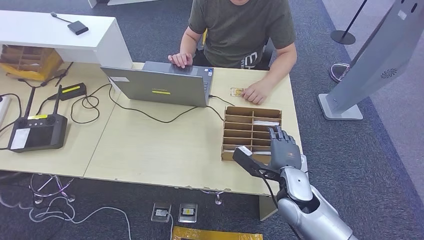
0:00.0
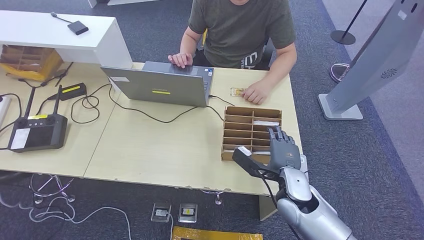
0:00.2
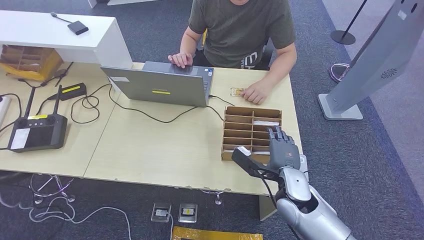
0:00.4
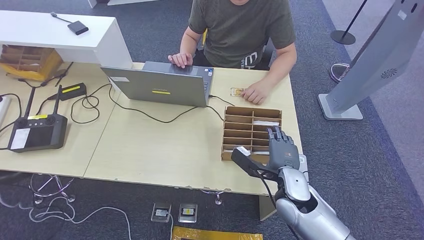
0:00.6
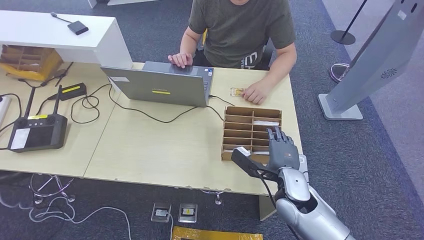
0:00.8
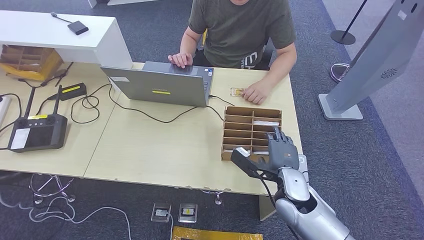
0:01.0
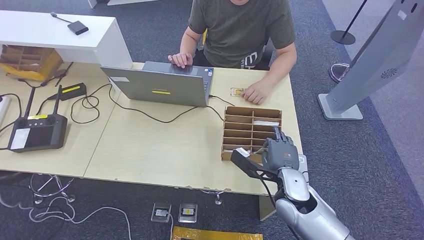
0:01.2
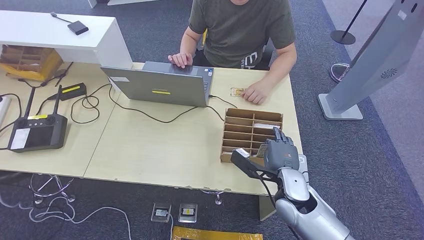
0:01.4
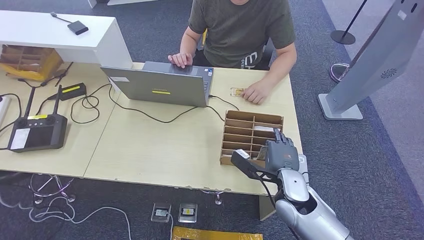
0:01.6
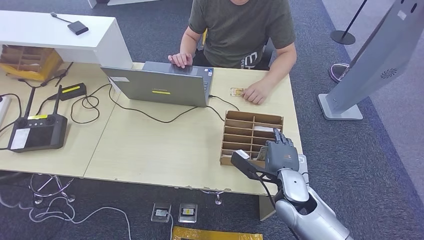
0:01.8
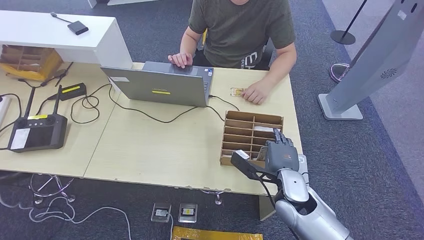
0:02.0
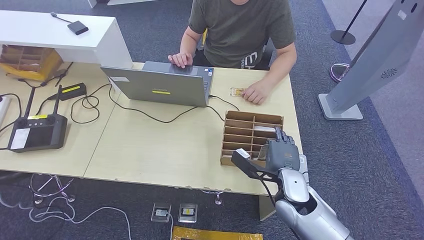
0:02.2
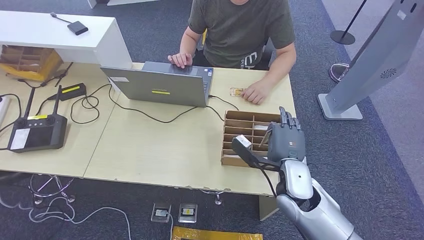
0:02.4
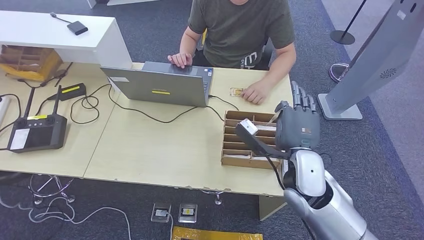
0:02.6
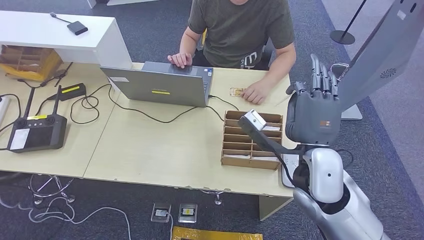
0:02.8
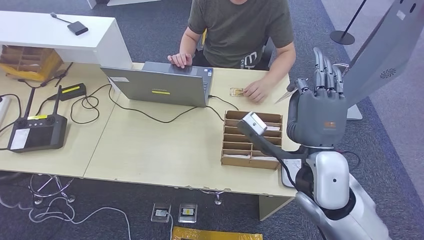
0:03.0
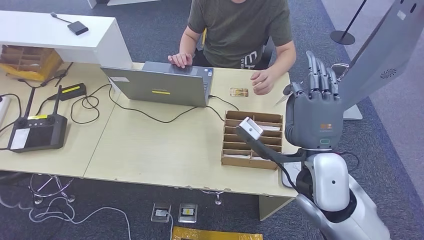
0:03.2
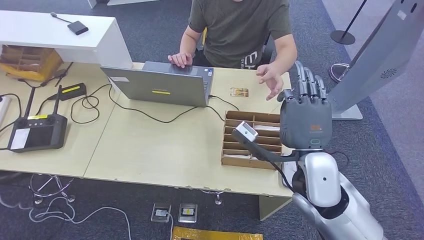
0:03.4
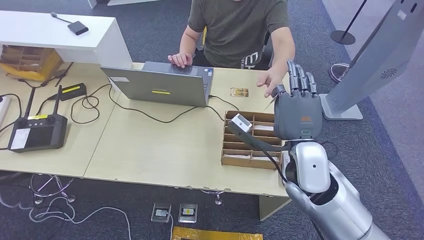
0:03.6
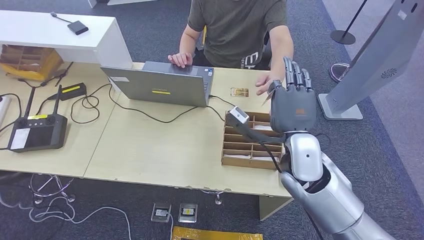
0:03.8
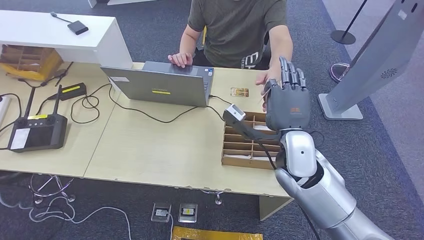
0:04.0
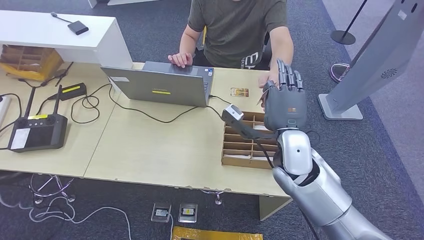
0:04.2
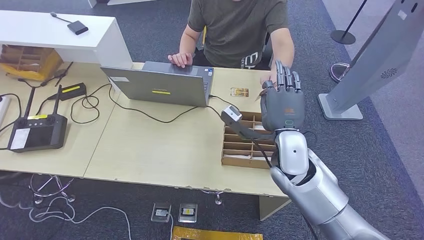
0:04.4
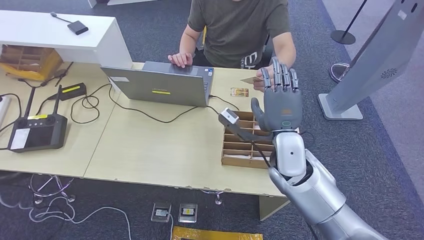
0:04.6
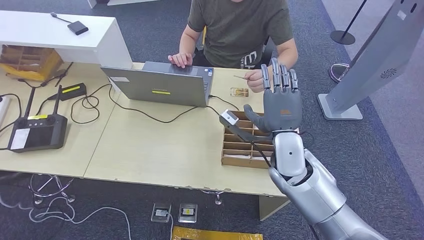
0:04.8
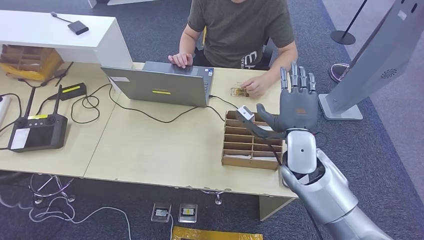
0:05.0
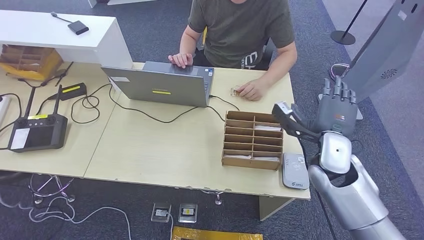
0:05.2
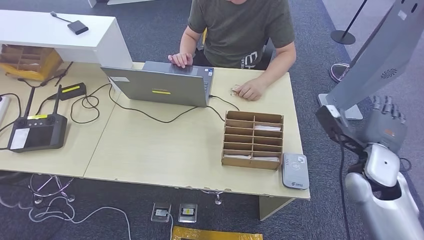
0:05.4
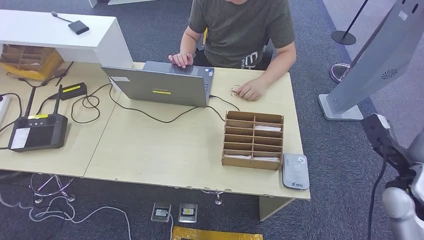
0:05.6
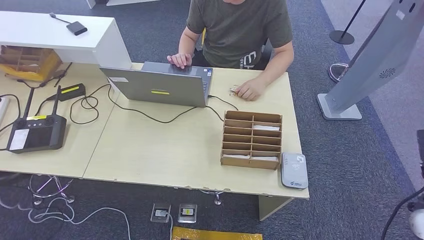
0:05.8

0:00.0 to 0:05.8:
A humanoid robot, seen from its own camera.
Step, 0:00.0 to 0:02.8: Pick up the room key from the key card box.
Step, 0:03.0 to 0:05.8: Hand the room key to the person.
0:00.0 to 0:01.4: Neither hand changes place.
0:01.4 to 0:02.8: The right hand moves upward, about 15 cm.
0:02.8 to 0:04.4: The right hand moves forward, about 5 cm.
0:04.4 to 0:05.8: The right hand travels to the right by approximately 30 cm.
